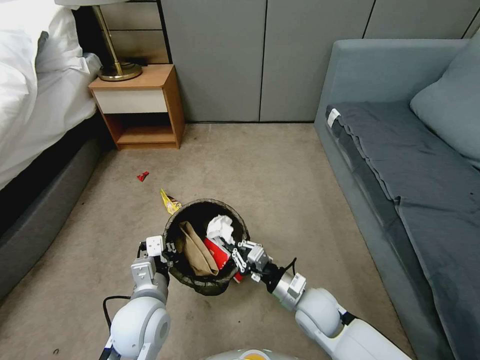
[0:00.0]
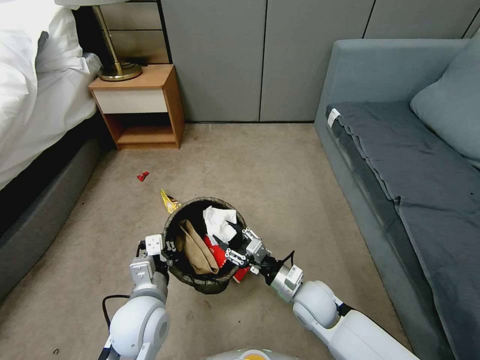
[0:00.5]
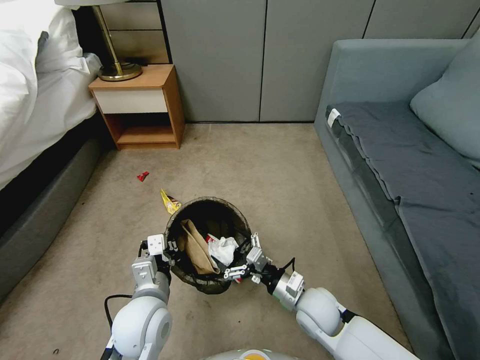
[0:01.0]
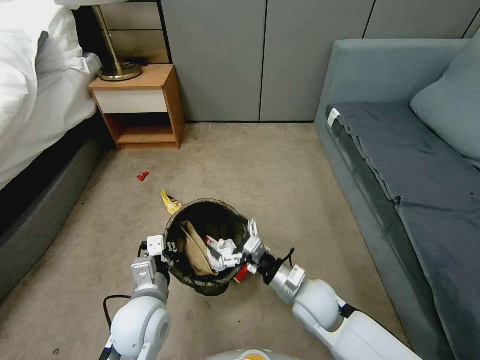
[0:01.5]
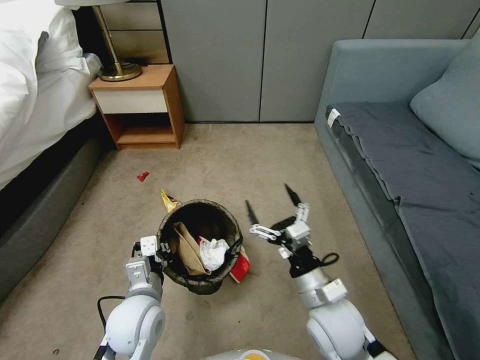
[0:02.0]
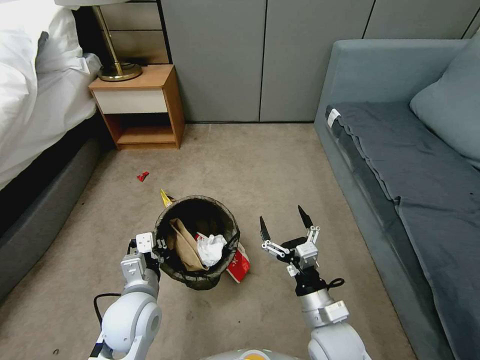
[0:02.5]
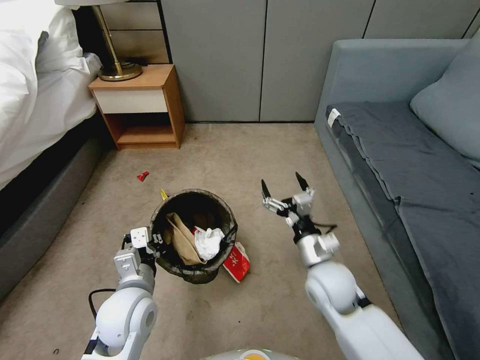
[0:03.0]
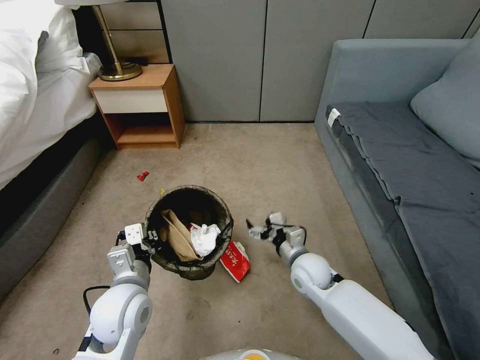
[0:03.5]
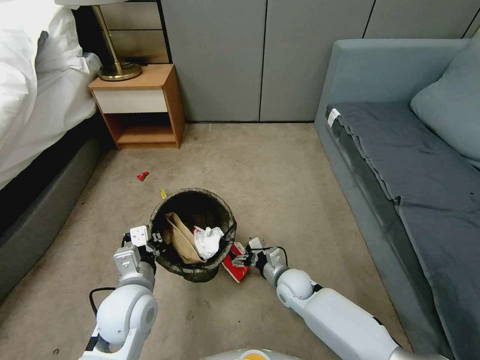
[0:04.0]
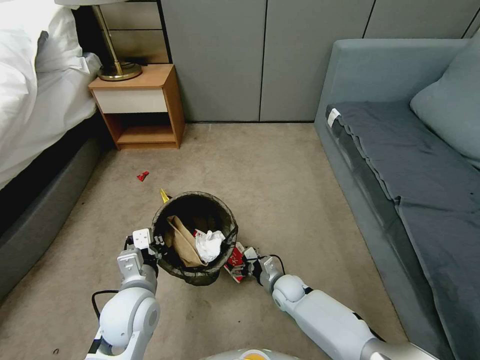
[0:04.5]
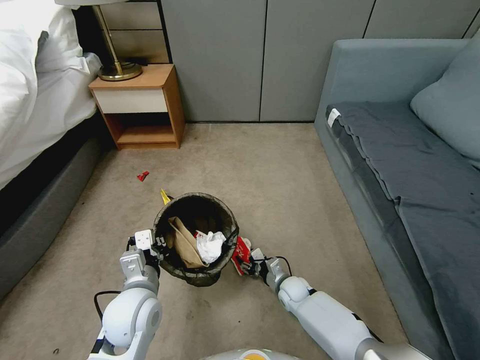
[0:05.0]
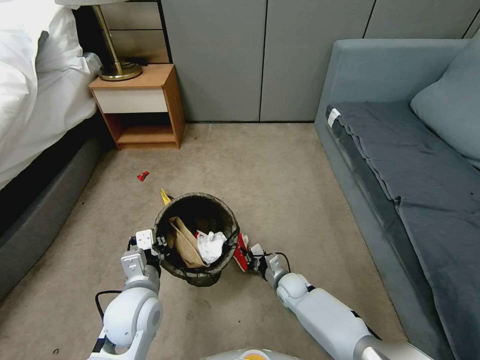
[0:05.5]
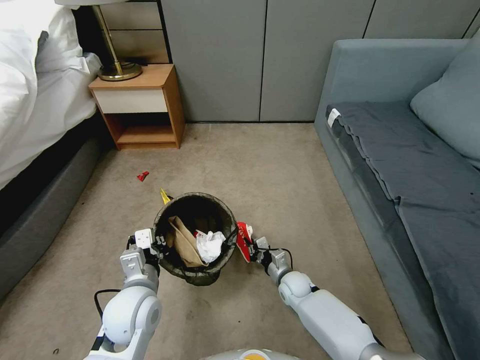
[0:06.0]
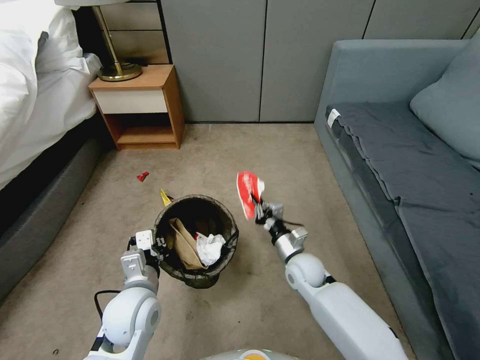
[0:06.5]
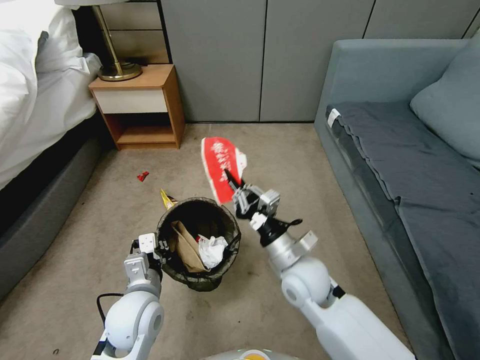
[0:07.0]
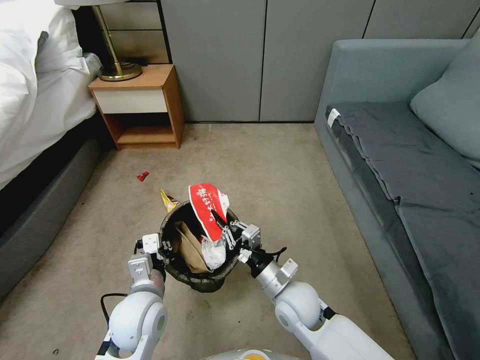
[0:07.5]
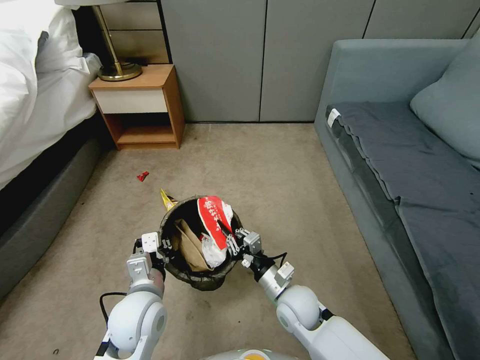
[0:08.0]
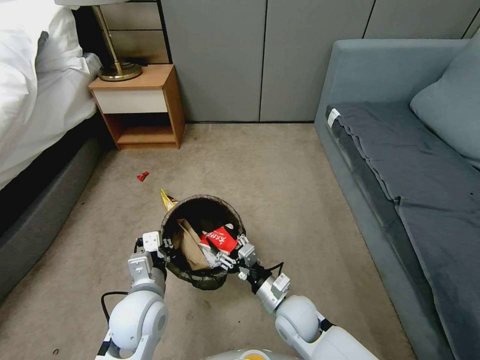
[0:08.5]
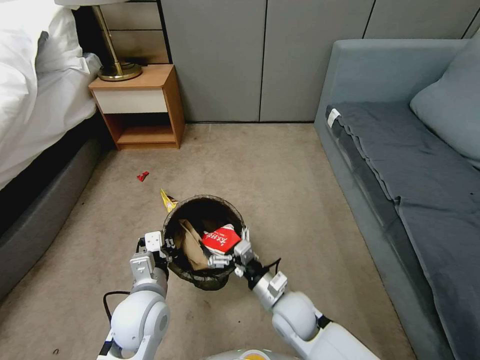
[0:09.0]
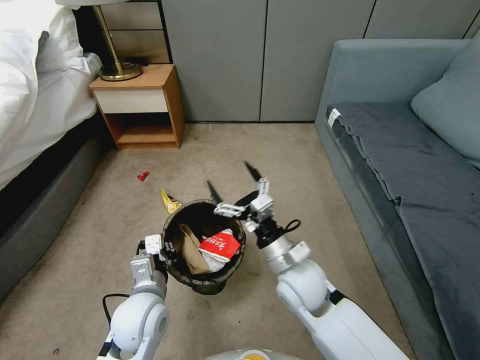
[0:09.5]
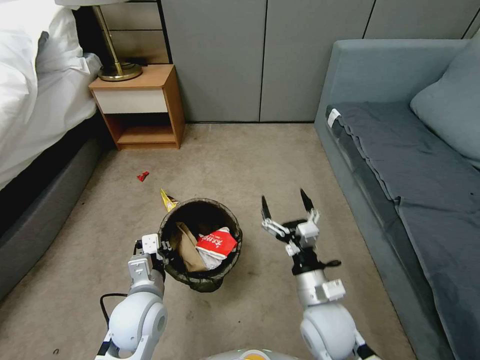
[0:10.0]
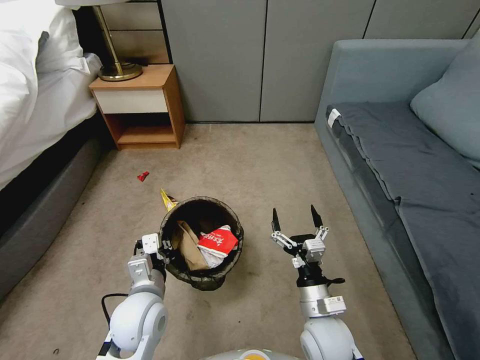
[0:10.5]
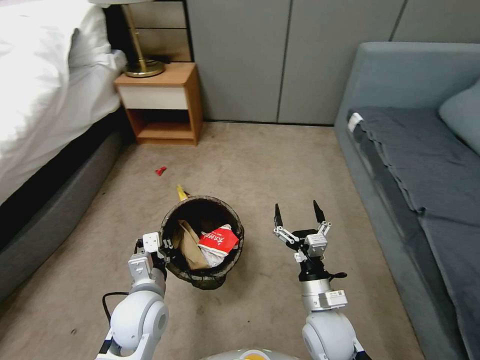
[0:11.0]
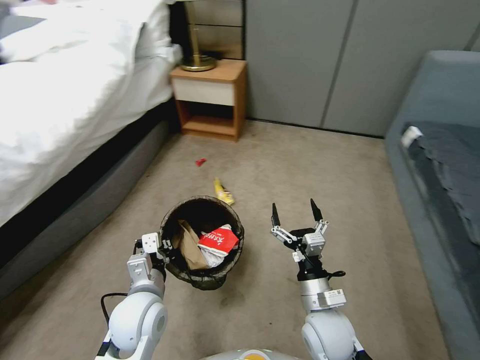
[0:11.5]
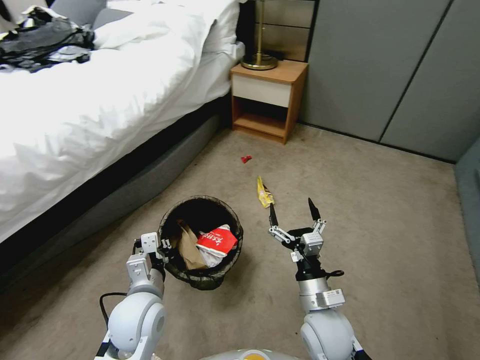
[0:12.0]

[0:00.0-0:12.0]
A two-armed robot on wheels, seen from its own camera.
Task of the whole recording: Pick up the trash bin, then pick up the garbage from the floor and place it into the trash bin.
0:00.0 to 0:02.0: The right gripper is displaced upward by some 10 cm, and opens.
0:02.0 to 0:04.0: The right gripper moves up and down over about 15 cm, changing direction 2 times.
0:04.0 to 0:06.0: The right gripper is displaced downward by approximately 5 cm, and closes up.
0:06.0 to 0:08.0: The right gripper is displaced upward and backward by about 15 cm.
0:08.0 to 0:10.0: The right gripper heads upward and backward, covering approximately 10 cm, and opens its fingers.

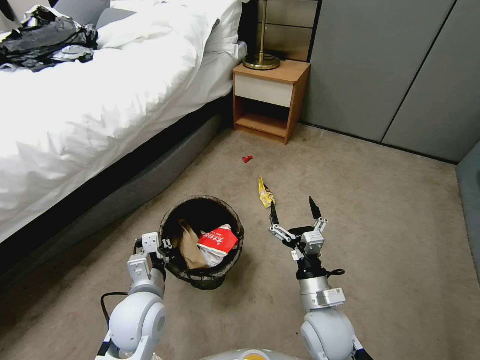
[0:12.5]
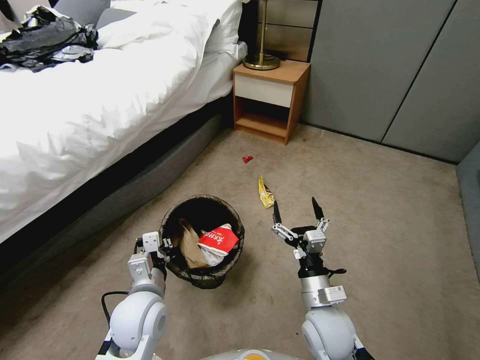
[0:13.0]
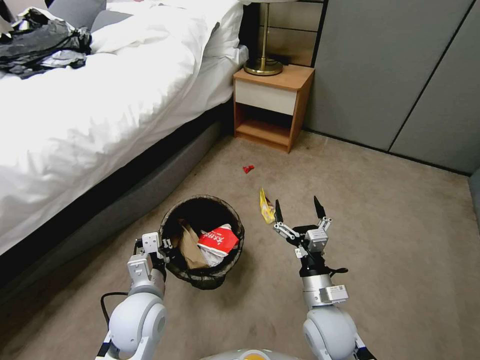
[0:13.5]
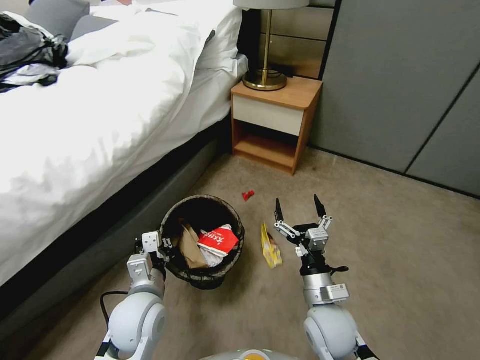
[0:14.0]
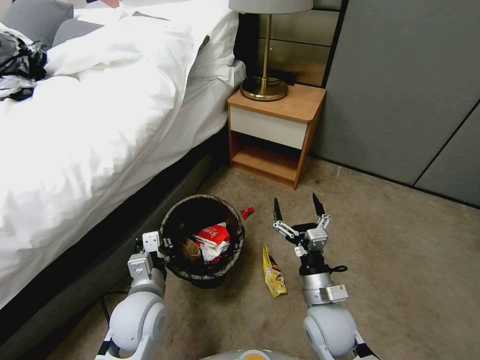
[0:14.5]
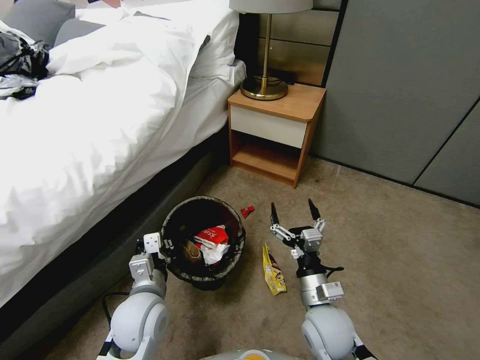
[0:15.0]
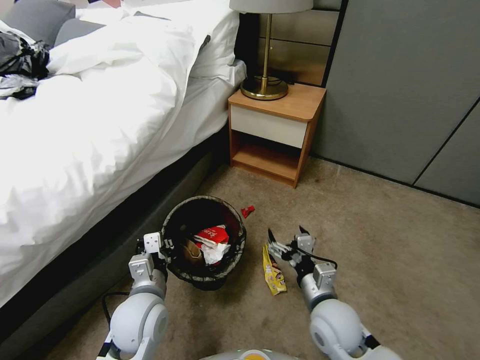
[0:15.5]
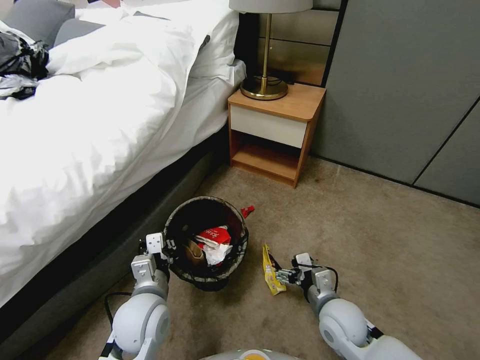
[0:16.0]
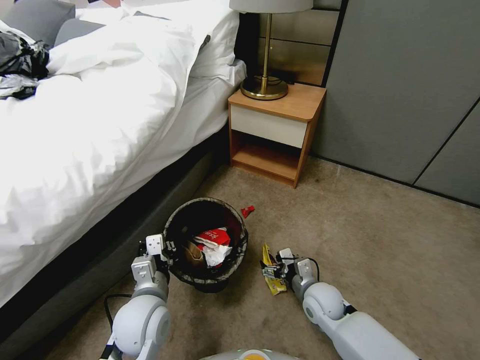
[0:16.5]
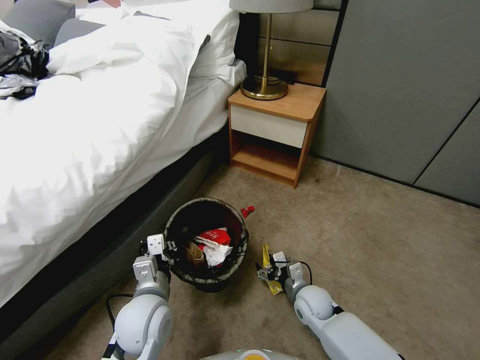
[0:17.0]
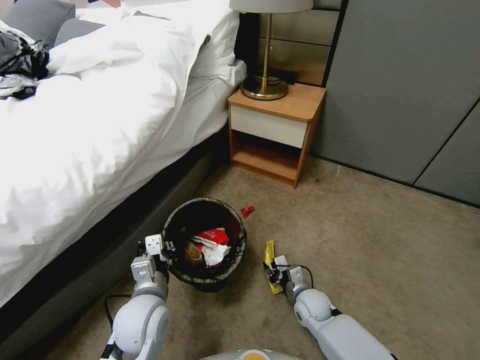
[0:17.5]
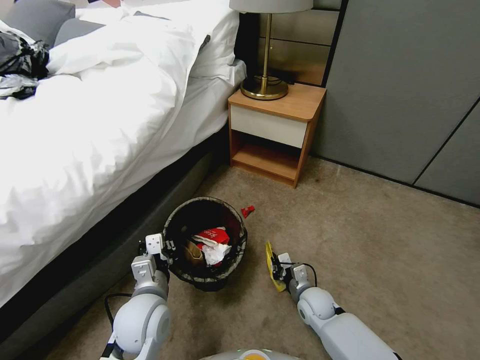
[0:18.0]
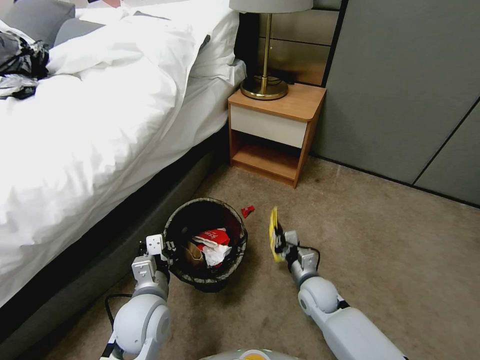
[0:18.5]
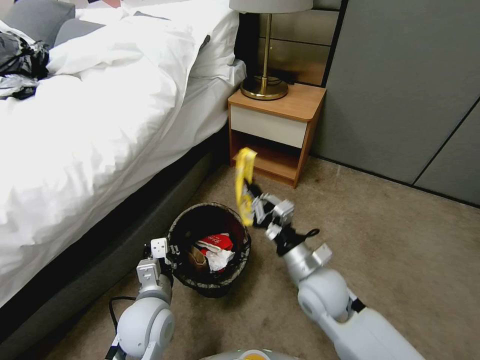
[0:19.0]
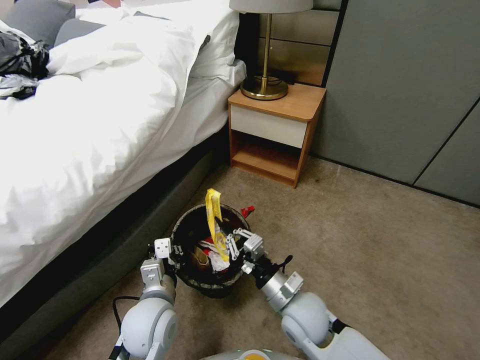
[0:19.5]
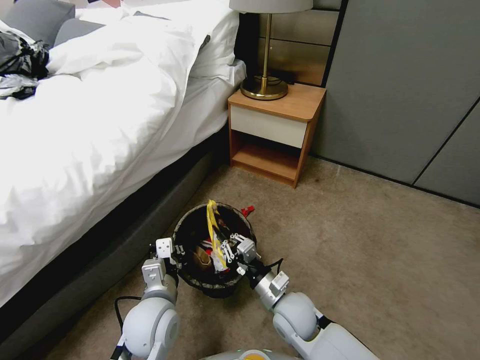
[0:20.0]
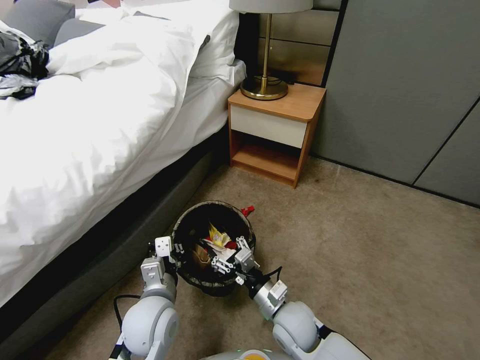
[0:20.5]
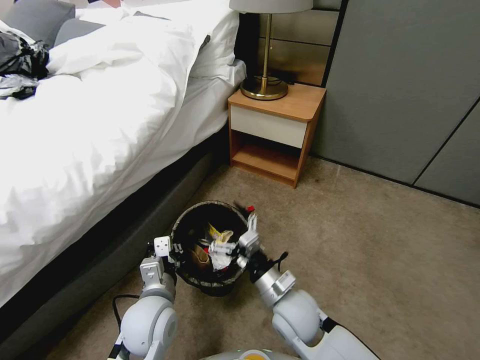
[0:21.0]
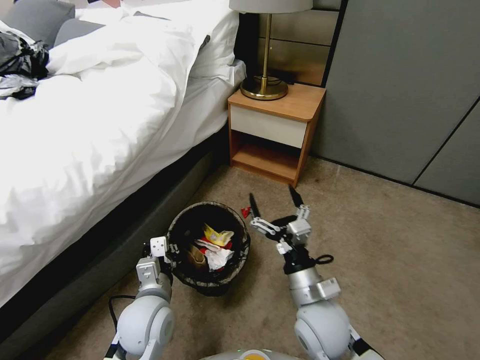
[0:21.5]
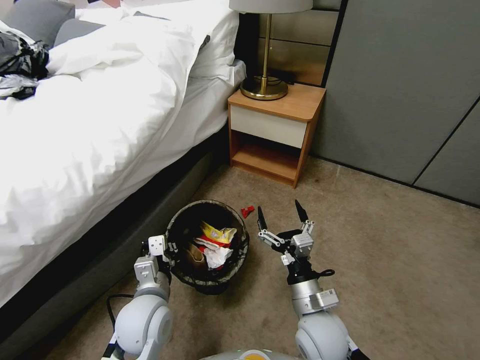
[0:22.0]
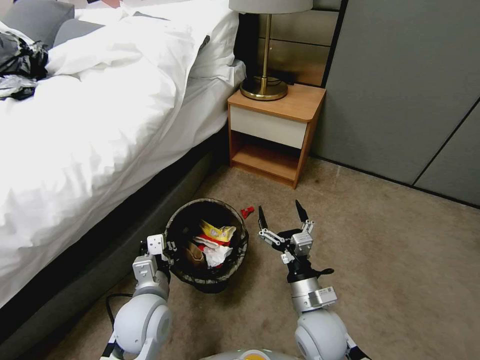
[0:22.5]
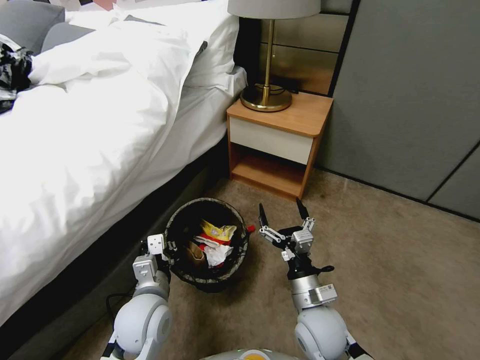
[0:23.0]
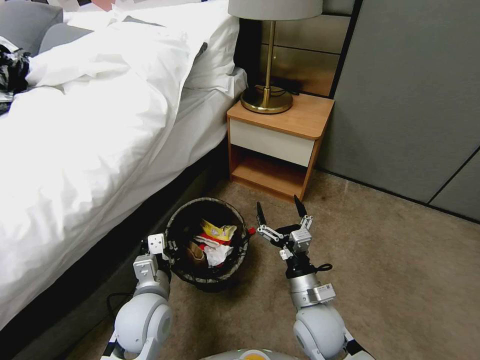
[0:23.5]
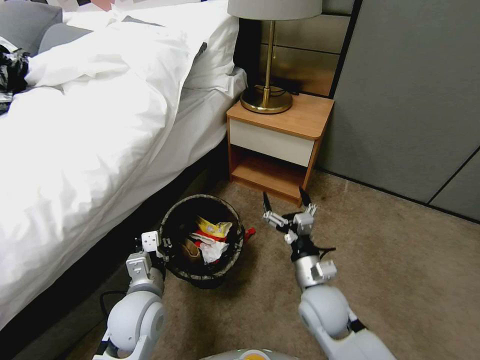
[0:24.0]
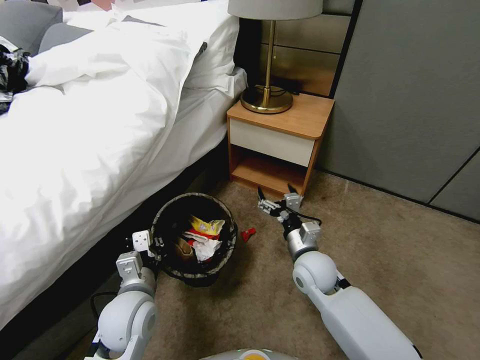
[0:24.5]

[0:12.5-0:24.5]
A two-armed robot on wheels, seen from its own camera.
Task of the whole recording: Pick up the trash bin, then pick up the garbage from the floor and place it into the trash bin.
0:14.5 to 0:16.5: The right gripper moves downward and forward, approximately 10 cm.
0:16.5 to 0:18.5: The right gripper closes.
0:18.5 to 0:20.5: The right gripper shifts roughly 10 cm to the left and backward, goes upward and returns, some 15 cm each way, and opens its fingers.
0:20.5 to 0:22.5: The right gripper travels upward by roughly 5 cm, and opens.
0:22.5 to 0:24.5: The right gripper is displaced forward by about 10 cm.

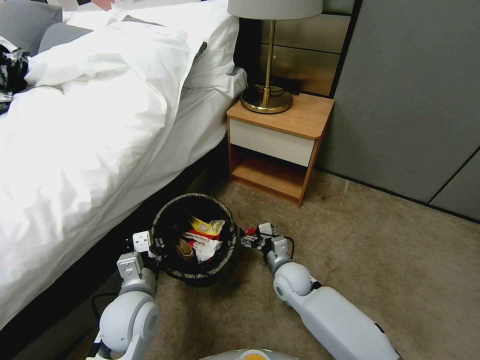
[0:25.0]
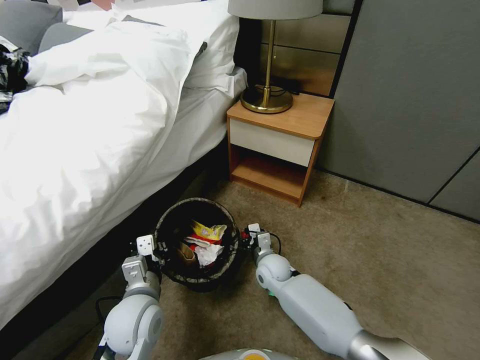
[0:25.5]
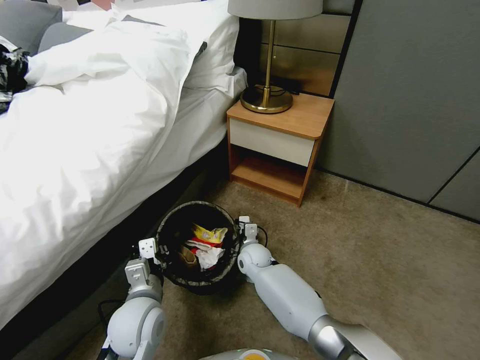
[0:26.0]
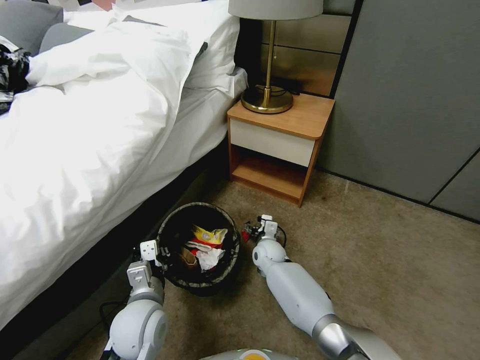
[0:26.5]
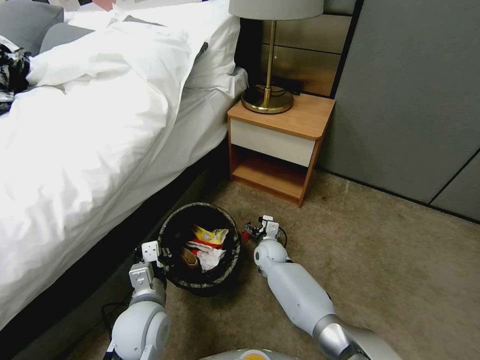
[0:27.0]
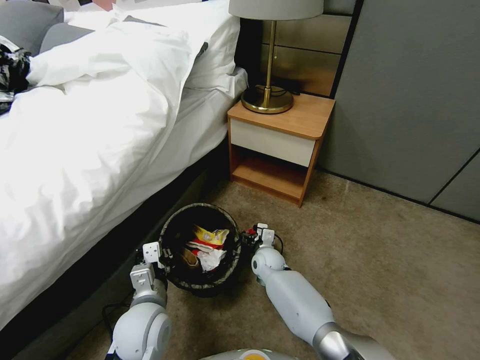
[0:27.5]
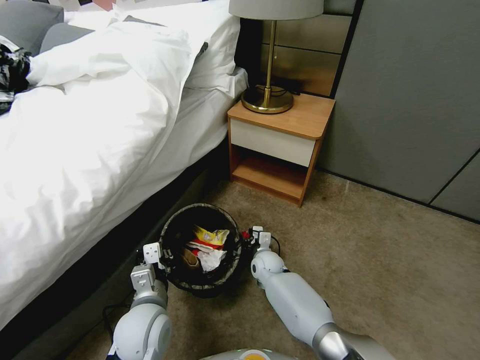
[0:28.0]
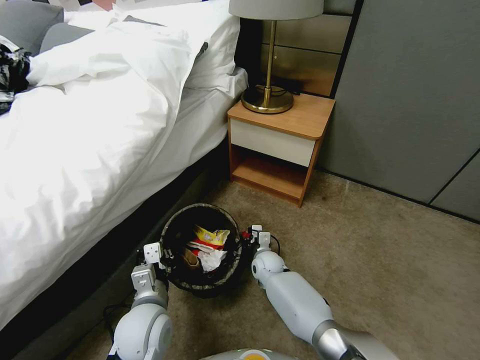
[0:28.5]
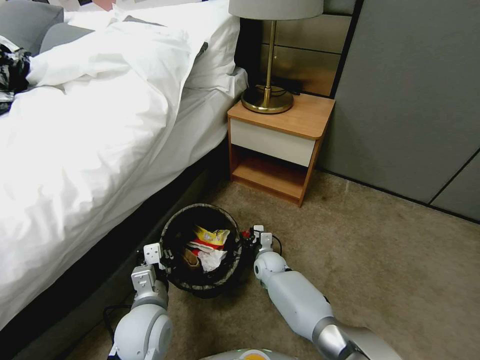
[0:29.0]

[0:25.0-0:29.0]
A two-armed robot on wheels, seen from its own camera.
Task of the whole recording: Pick up the trash bin, then pick up the garbage from the floor and place it into the trash bin.
0:25.0 to 0:27.0: The right gripper travels forward by approximately 10 cm.
0:27.0 to 0:29.0: The grippers stay close to where they were, moving slightly.
